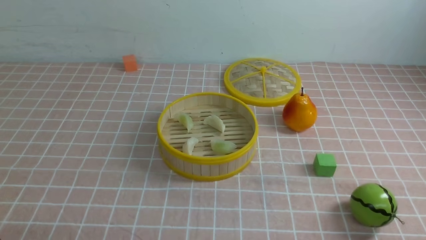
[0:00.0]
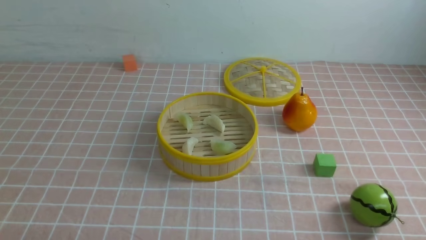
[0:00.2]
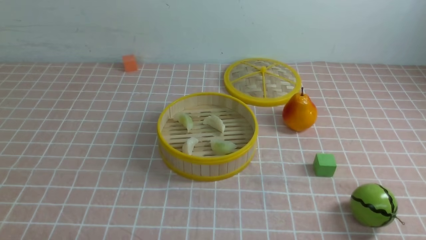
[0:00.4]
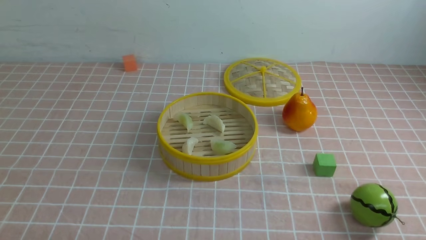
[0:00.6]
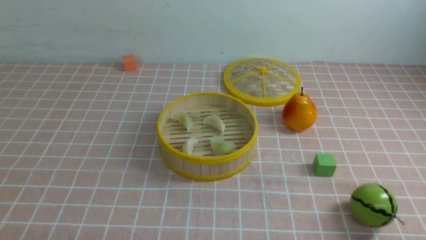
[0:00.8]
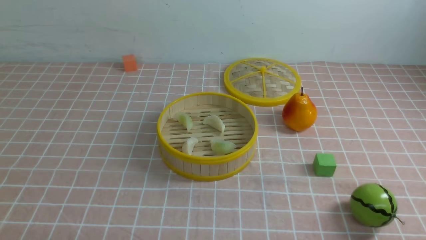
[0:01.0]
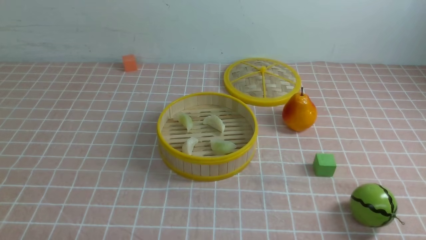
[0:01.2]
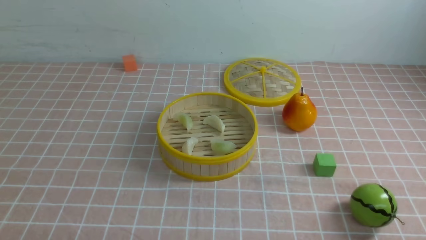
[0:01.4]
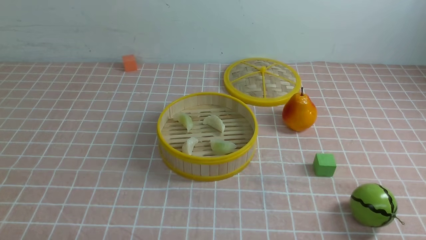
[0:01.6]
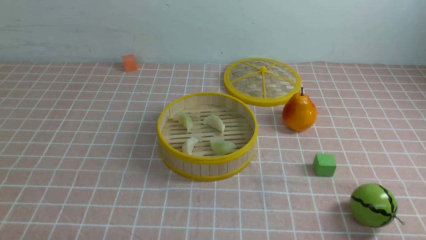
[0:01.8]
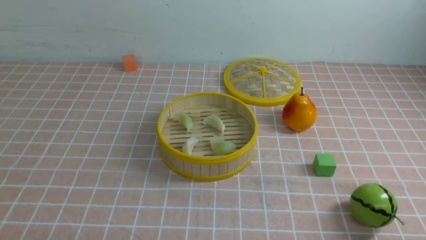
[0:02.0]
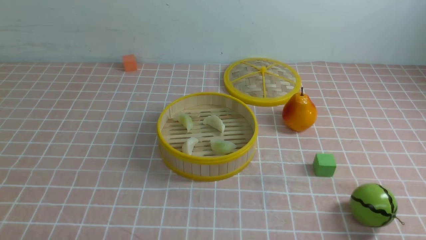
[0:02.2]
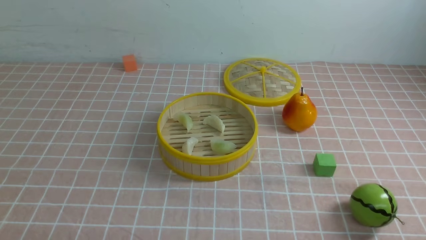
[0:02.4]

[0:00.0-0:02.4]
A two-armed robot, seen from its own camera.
Task of the whole recording: put the dumplings into the steamer on the table with the pink tablecloth.
0:01.2 to 0:02.4: Neither gripper changes place.

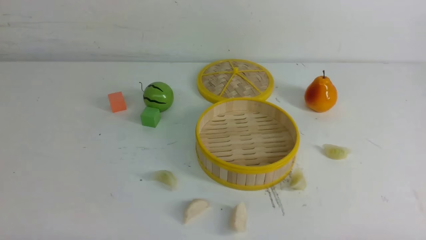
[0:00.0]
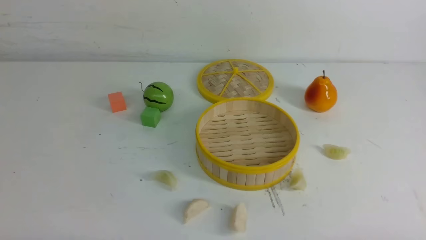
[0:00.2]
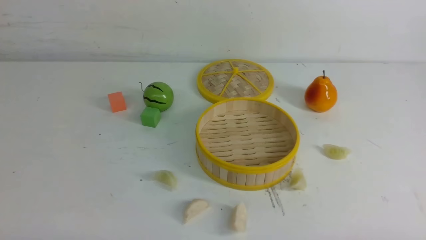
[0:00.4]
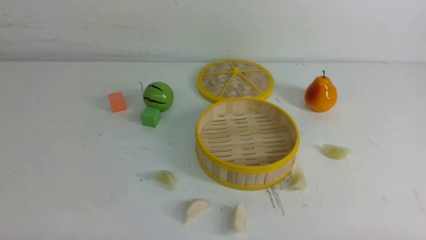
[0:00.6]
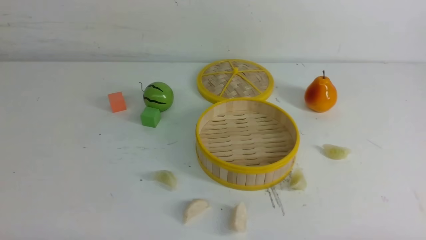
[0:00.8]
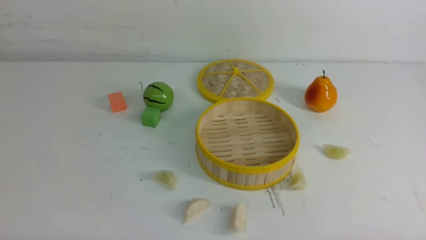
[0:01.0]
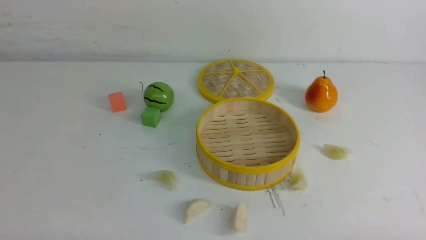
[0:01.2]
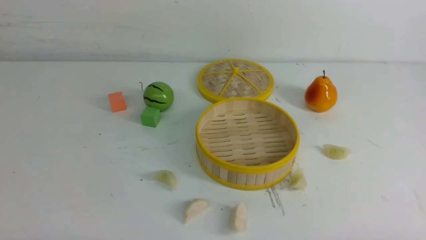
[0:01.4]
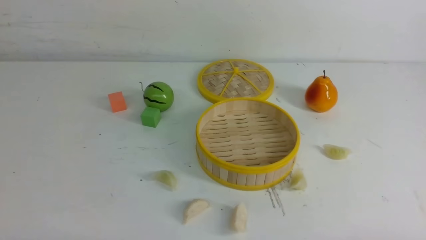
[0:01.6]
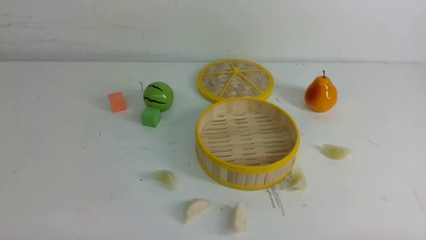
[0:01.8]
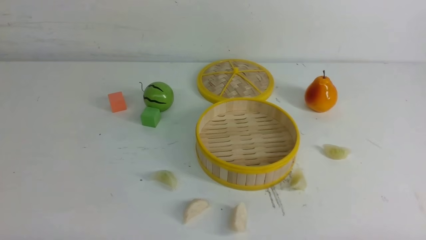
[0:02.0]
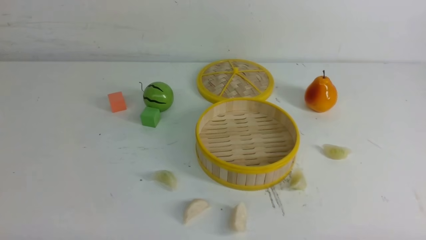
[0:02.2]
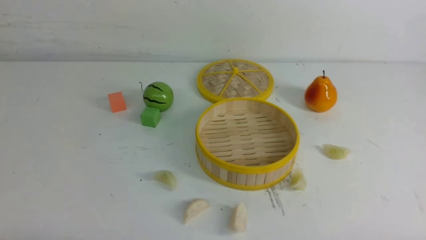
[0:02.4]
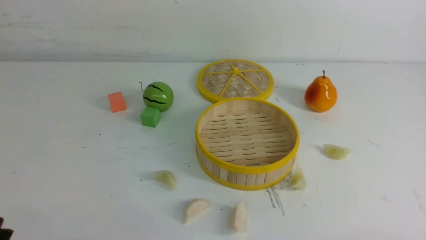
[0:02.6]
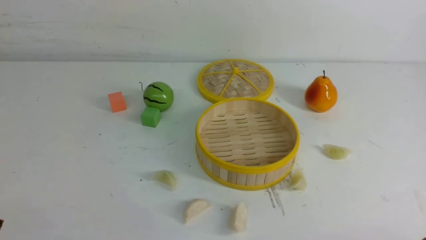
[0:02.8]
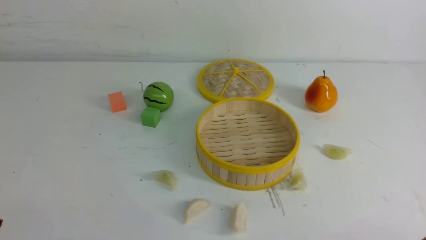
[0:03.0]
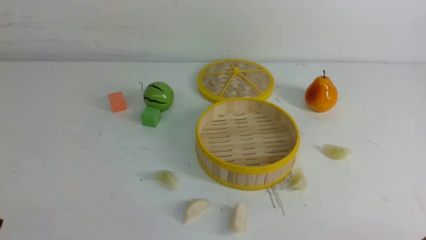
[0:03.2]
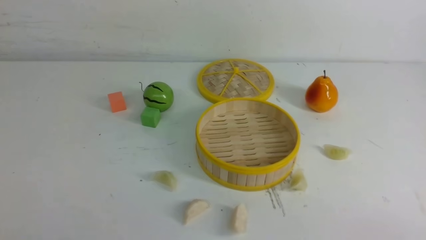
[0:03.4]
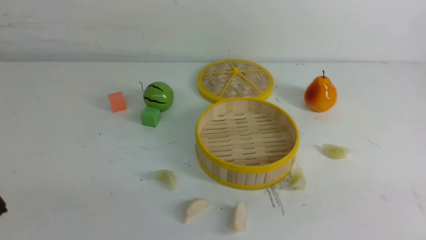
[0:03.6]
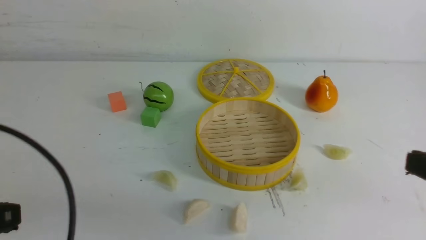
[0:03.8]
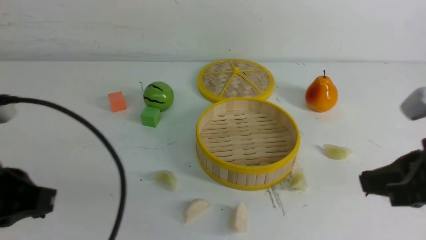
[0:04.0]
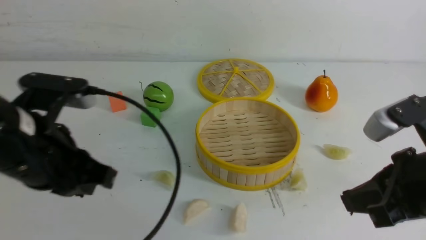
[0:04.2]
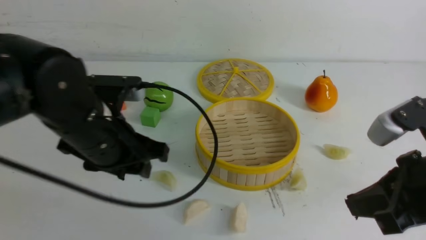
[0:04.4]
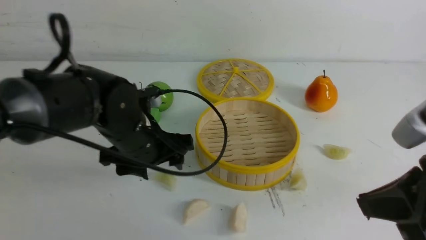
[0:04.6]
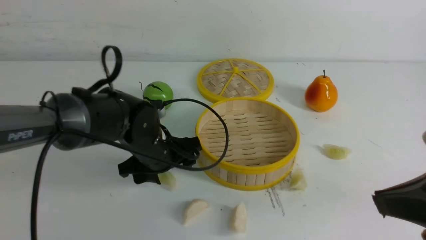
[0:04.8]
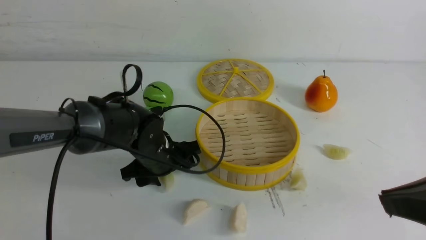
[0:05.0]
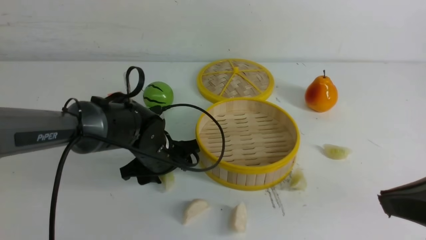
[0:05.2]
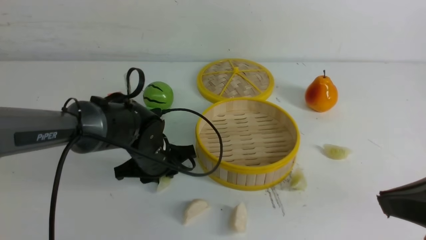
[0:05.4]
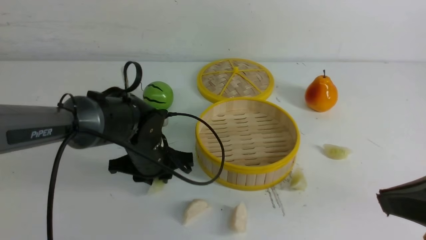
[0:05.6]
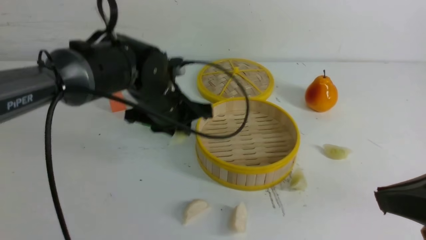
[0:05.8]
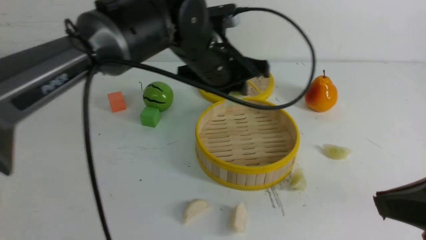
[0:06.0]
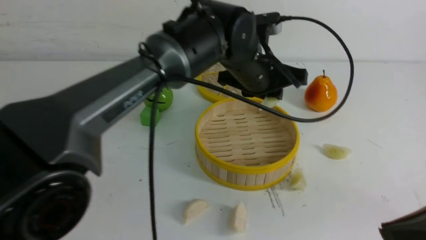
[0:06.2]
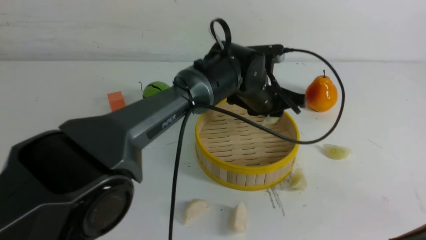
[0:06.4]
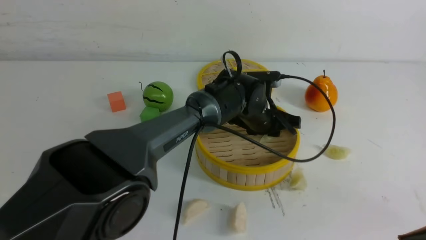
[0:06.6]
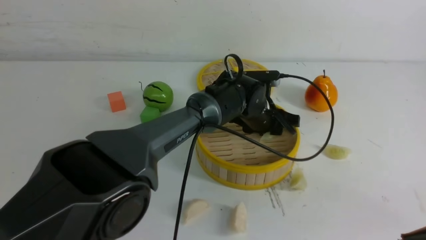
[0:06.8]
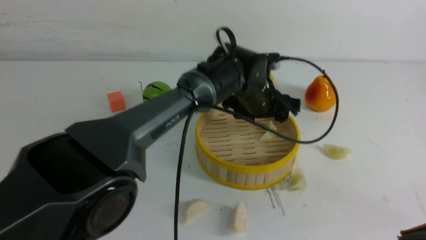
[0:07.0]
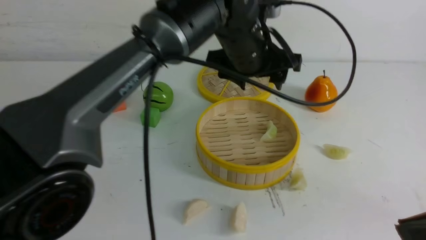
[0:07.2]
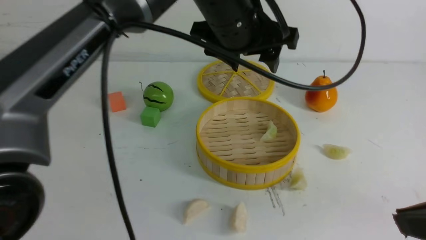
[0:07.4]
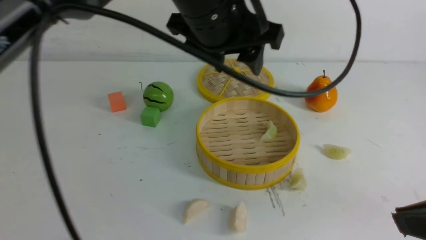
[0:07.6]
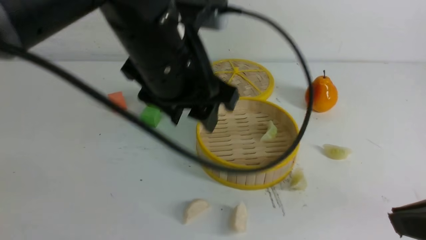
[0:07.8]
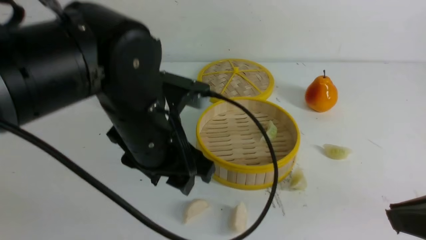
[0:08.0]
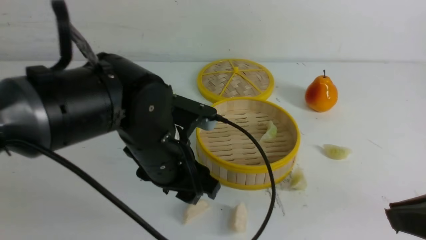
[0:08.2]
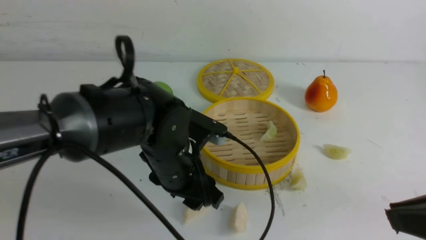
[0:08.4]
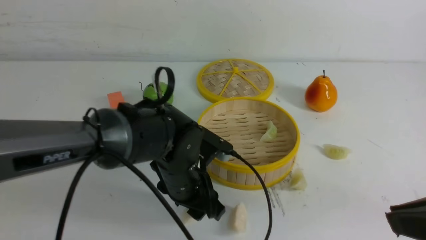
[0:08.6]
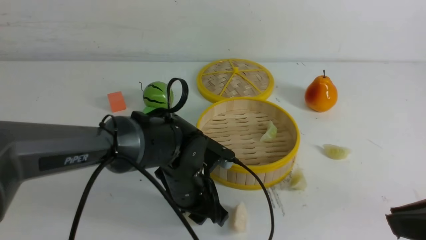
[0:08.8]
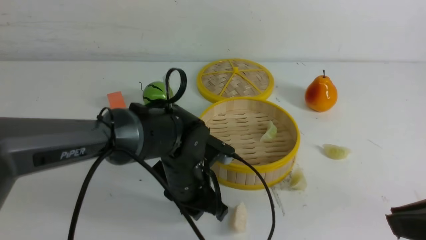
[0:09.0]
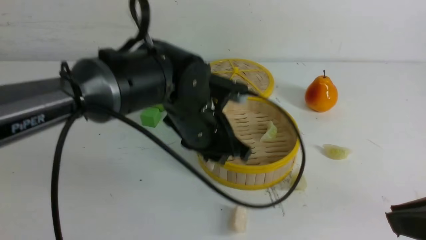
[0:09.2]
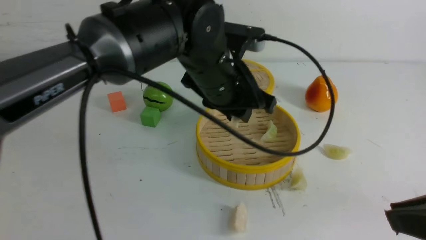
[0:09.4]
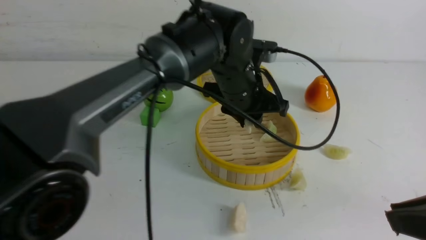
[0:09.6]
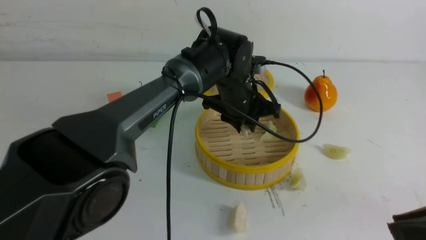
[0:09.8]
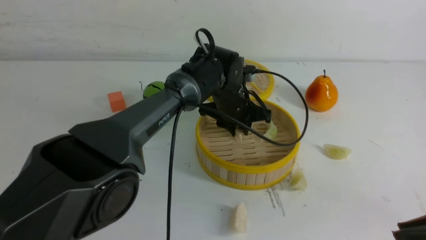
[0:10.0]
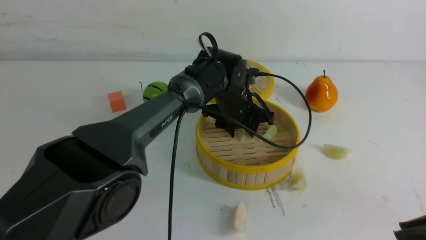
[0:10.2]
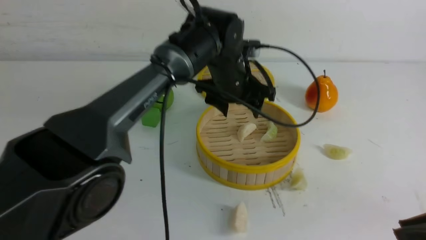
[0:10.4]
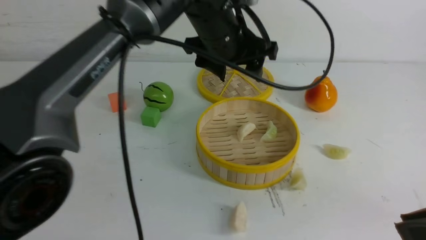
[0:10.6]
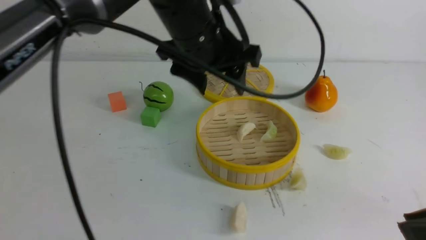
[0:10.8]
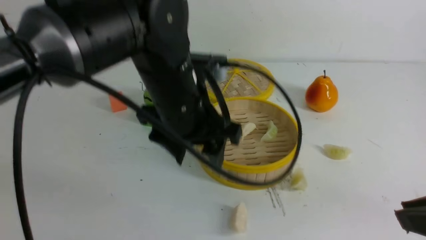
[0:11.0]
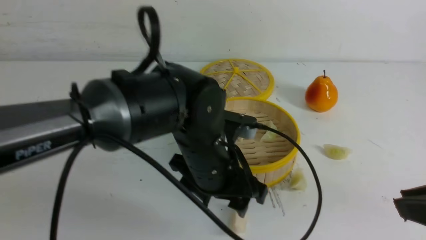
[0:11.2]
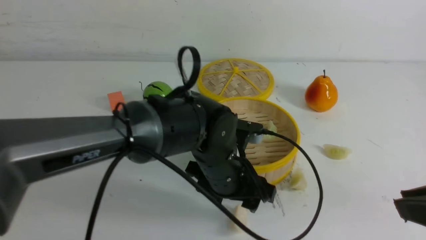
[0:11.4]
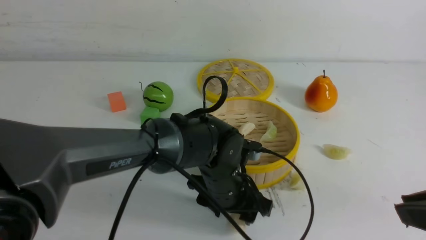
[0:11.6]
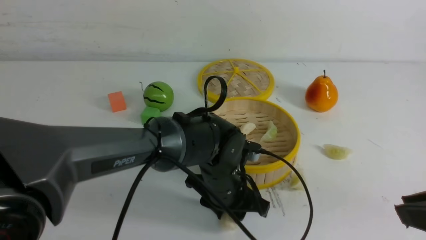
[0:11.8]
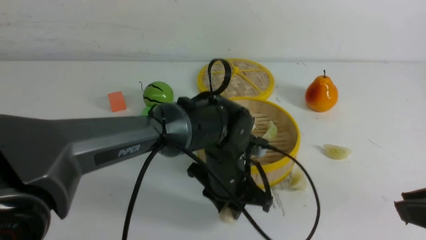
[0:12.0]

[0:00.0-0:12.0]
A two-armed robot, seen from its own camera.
Task of the whole recording: put the dumplings into the steamer on the white table.
Step, 0:00.0 to 0:05.6: use the left arm to grab a dumpling.
Step, 0:05.8 to 0:06.8: use the left arm to put the dumpling into the steamer.
Step, 0:07.0 to 0:08.8: use the left arm to grab a dumpling.
Step, 0:09.0 to 0:10.2: use the left arm to put the dumpling into the steamer.
Step, 0:10.4 to 0:11.8: use the left arm to grab a dumpling.
0:03.0 to 0:04.4: The right gripper shifts roughly 20 cm upward, forward and to the left, and closes its fingers. Meanwhile the left gripper goes roughly 25 cm forward, to the right and upward, and closes, then reopens.
0:04.4 to 0:06.0: The left gripper heads forward and to the right, covering about 20 cm, moves roughly 15 cm downward and comes back, and opens, then closes once more. Meanwhile the right gripper shifts by roughly 5 cm.
0:06.0 to 0:07.6: The left gripper heads upward and backward, covering about 15 cm, and opens its fingers.
0:07.6 to 0:09.0: The left gripper is displaced downward by approximately 25 cm, and closes up.
0:09.0 to 0:10.4: The left gripper shifts approximately 15 cm forward, upward and to the right.
0:10.4 to 0:12.0: The left gripper travels backward and downward by about 15 cm.

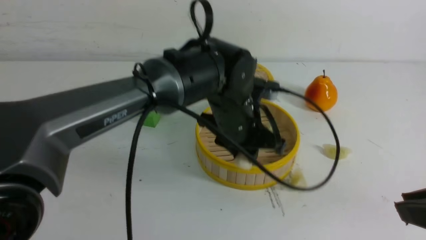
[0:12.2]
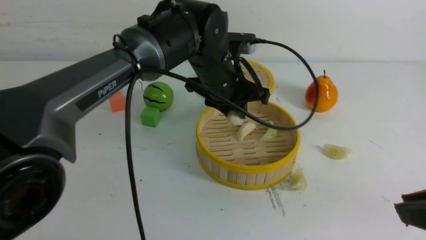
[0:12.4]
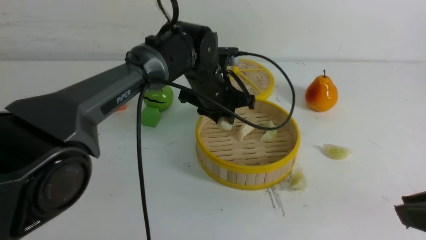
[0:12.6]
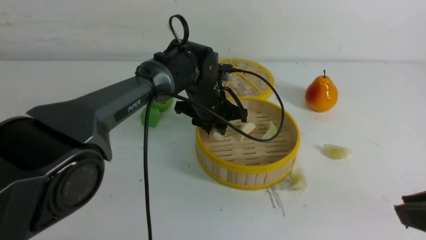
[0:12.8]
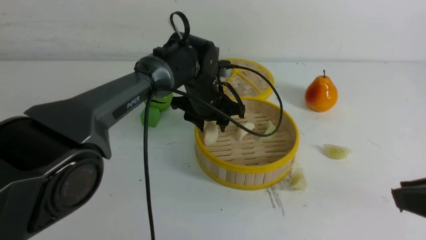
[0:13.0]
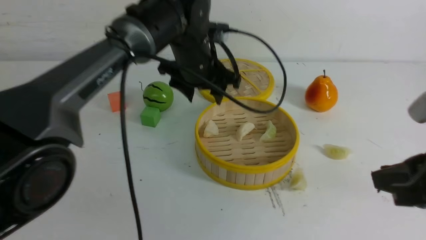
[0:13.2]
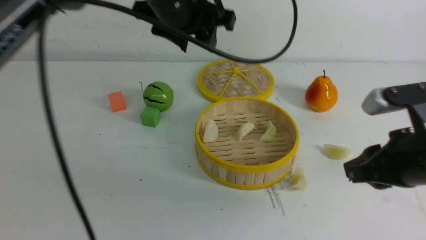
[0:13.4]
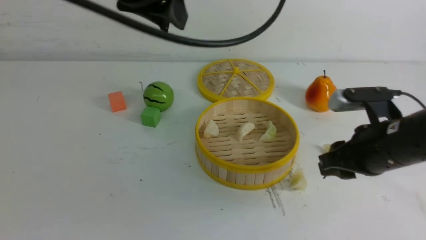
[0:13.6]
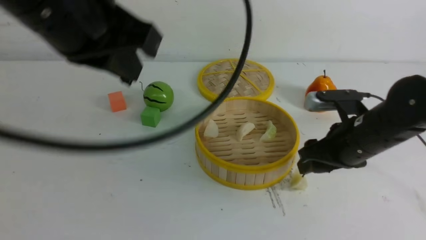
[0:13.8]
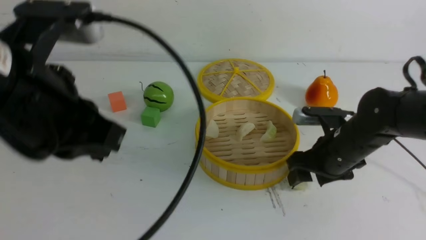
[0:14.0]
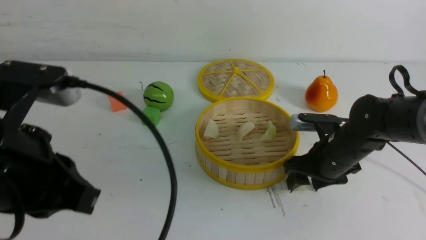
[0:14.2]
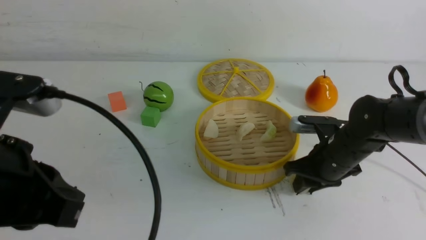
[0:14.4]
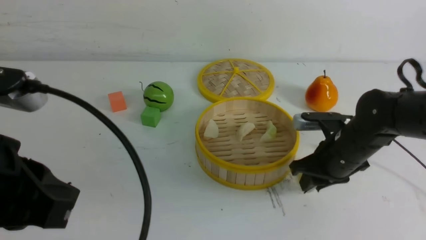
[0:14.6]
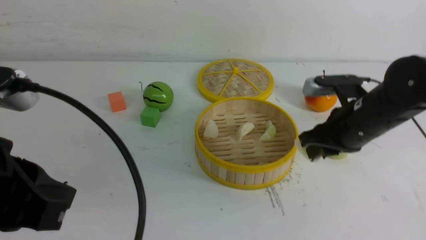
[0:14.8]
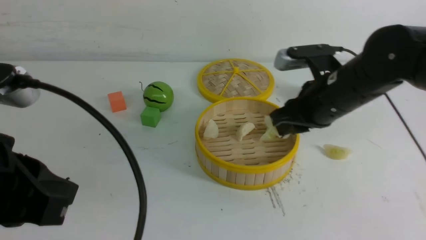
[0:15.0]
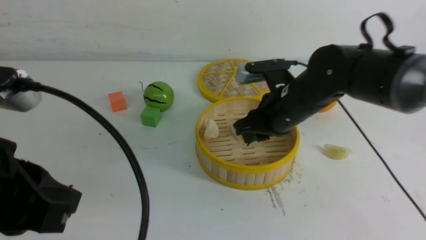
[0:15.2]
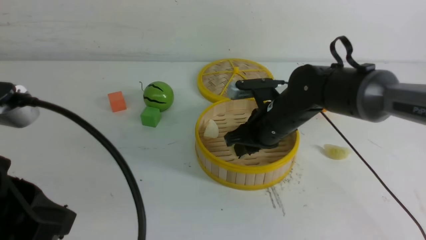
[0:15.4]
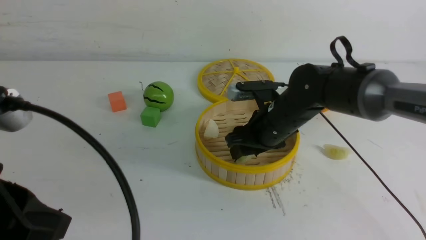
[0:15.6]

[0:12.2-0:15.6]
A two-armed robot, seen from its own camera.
Task of the whole recording: put the dumplings into the steamer on the white table.
Step, 0:12.2 to 0:12.8: use the left arm to put the dumpling into the steamer.
Step, 0:13.2 to 0:14.6: use the right arm to grab a dumpling.
0:12.2 to 0:13.8: The left gripper goes some 25 cm upward and to the left, and opens, then closes once more, while the right gripper goes approximately 20 cm forward and downward, and opens.
0:13.8 to 0:15.6: The left gripper travels backward, downward and to the left by about 20 cm. The right gripper shifts about 15 cm to the left and forward.
